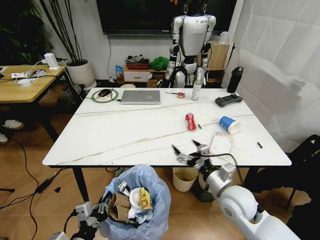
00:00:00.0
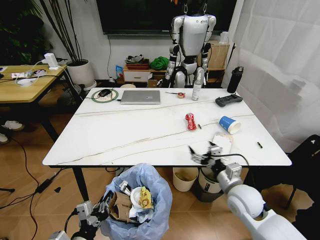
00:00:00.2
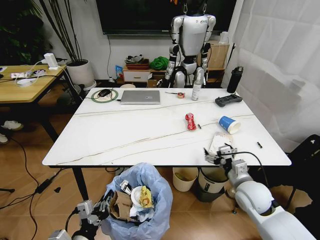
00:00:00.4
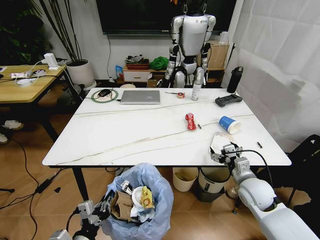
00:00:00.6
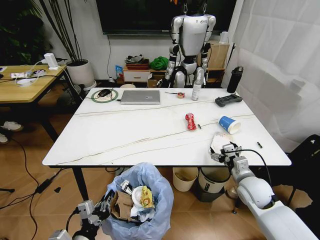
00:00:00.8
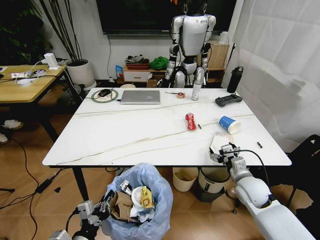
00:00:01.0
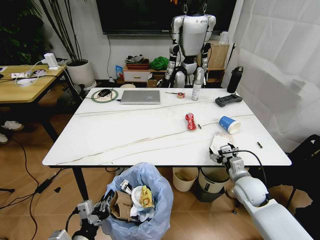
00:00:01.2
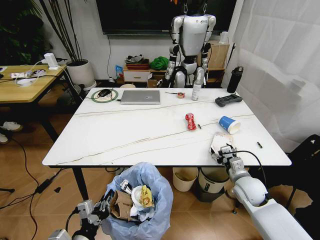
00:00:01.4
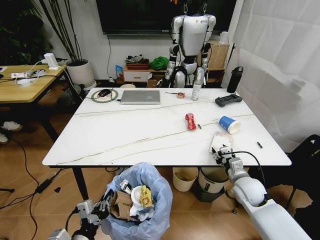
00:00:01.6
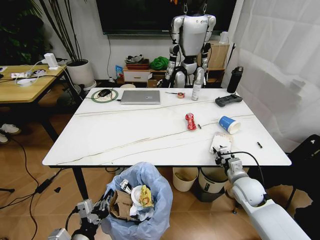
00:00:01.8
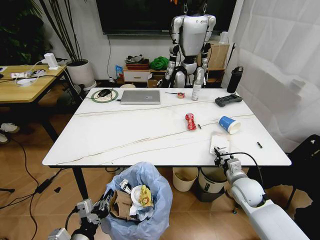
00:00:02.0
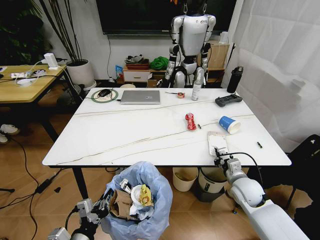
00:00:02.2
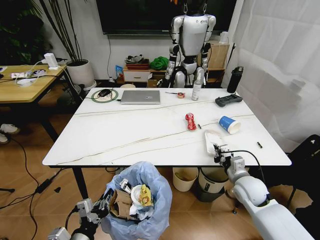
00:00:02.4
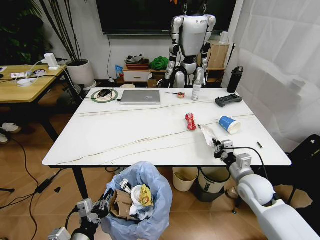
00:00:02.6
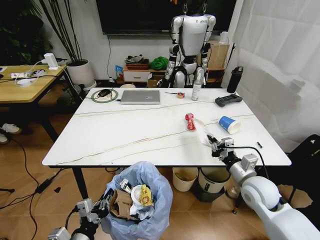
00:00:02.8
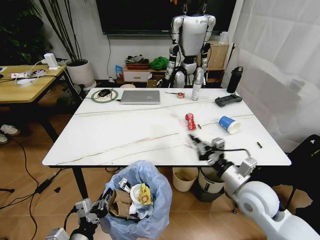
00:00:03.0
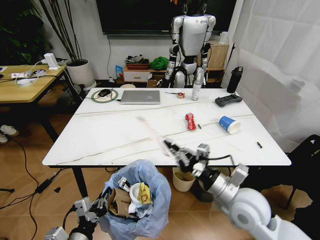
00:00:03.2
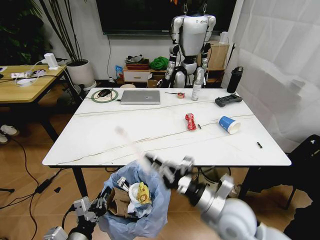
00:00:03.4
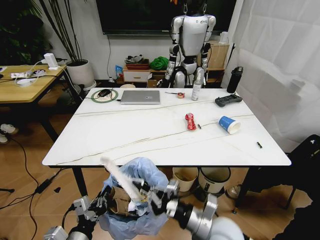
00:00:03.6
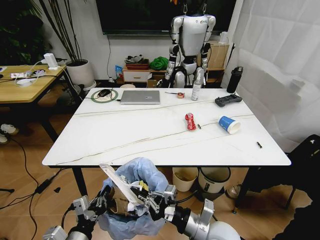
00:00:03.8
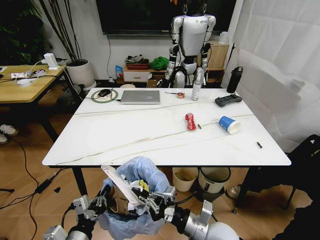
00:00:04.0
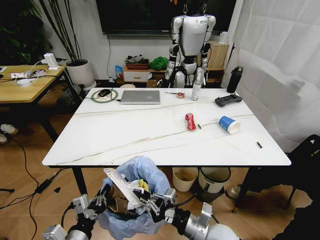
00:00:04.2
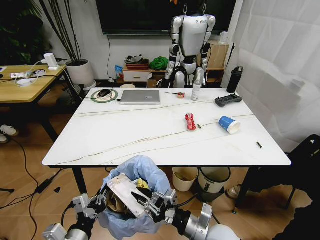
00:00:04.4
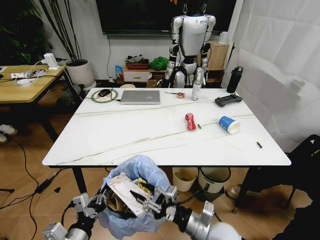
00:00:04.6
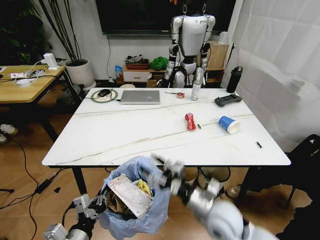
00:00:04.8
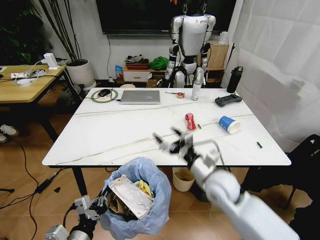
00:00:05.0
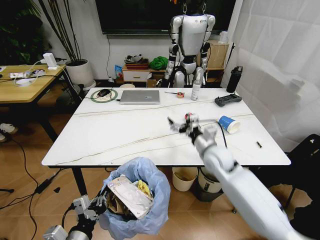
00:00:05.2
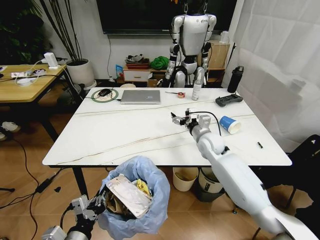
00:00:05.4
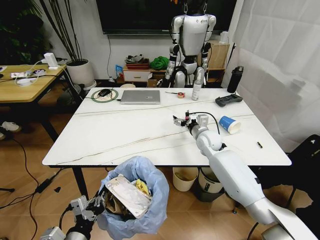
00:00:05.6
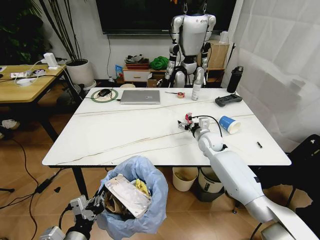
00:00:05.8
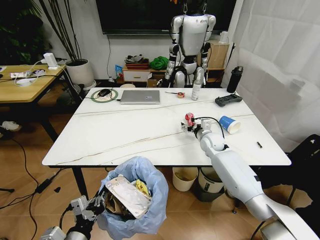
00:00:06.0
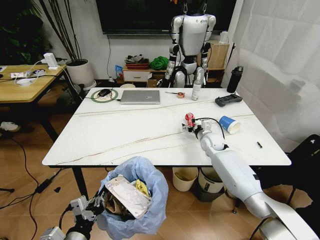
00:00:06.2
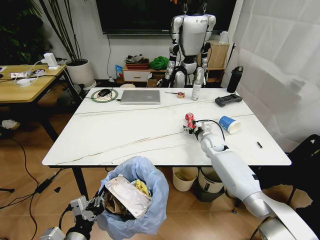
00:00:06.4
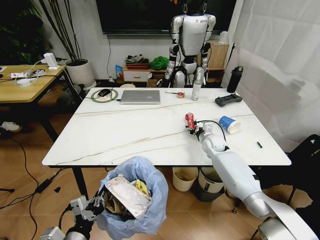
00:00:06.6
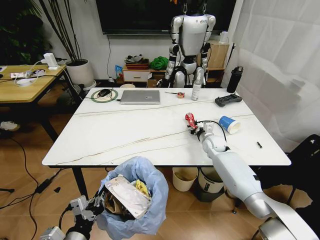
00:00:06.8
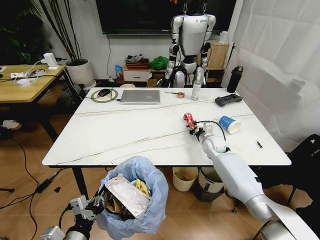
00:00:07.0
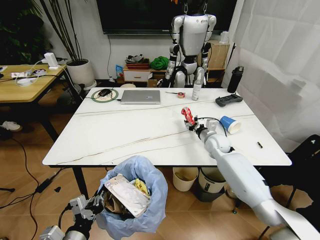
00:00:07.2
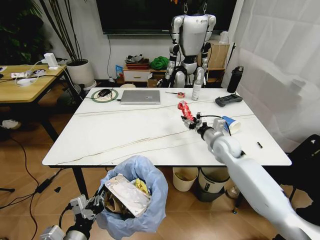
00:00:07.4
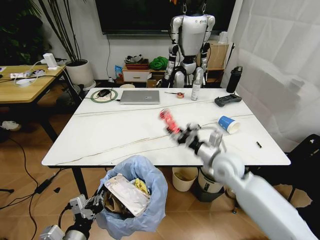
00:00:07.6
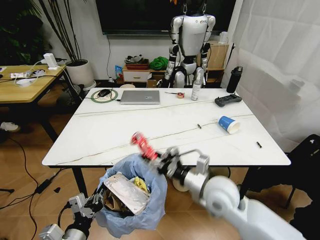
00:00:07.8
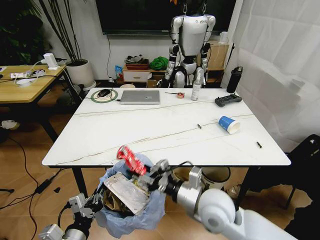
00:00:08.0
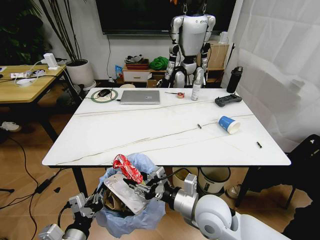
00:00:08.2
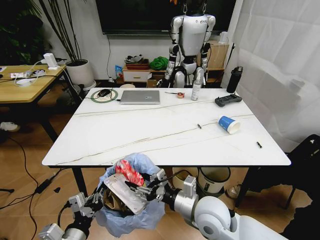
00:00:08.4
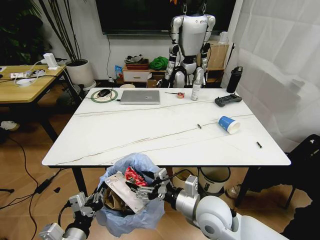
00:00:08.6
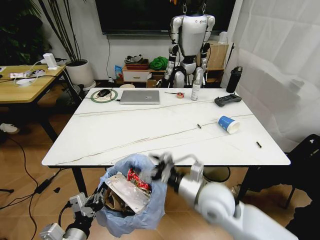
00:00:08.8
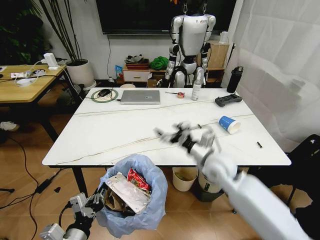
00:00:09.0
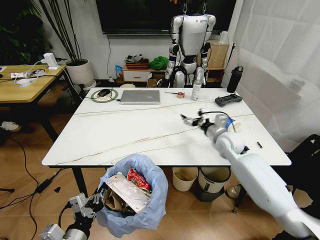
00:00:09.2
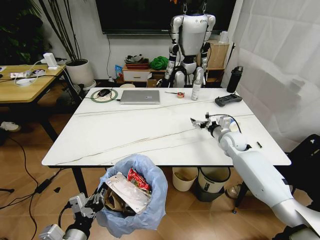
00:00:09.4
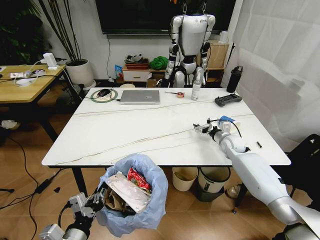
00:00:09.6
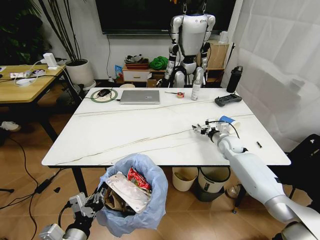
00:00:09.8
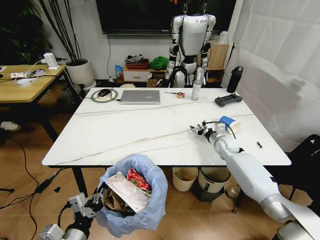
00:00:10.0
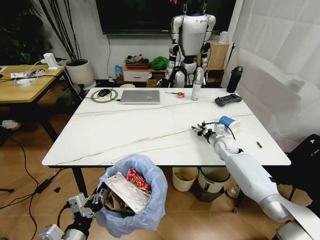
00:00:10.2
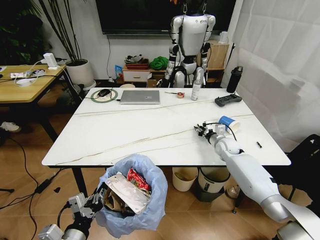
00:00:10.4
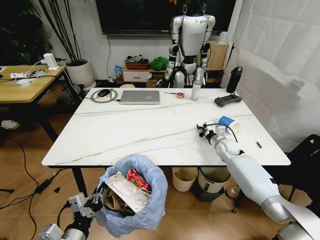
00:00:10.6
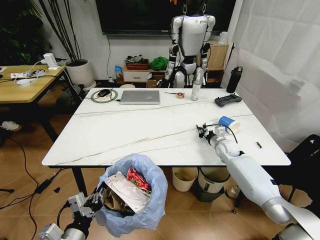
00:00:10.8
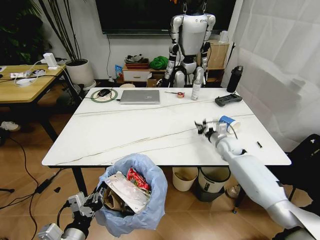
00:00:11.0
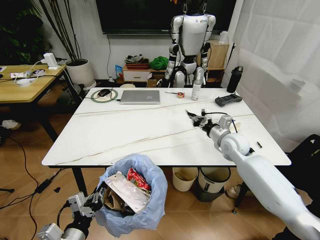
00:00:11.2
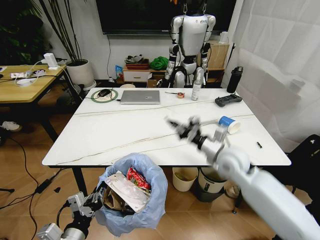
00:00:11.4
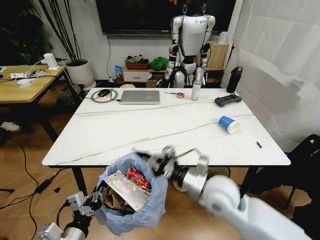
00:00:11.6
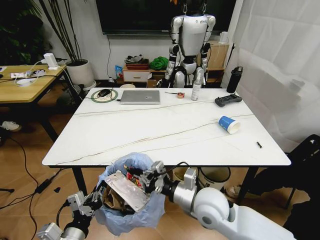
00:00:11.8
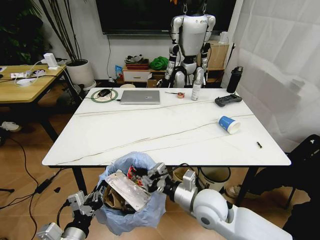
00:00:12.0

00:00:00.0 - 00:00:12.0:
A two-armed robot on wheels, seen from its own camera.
Task of the whole recording: Pick up the trash bin and place the trash from the table into it.
00:00:00.0 - 00:00:01.6: The right gripper travels to the right, downward and forward by roughly 10 cm, and closes up.
00:00:01.6 - 00:00:03.0: The right gripper travels upward and backward by approximately 10 cm, and closes.
00:00:03.0 - 00:00:04.4: The right gripper travels to the left, backward and downward by some 15 cm.
00:00:04.4 - 00:00:06.0: The right gripper goes some 35 cm forward, and opens its fingers.
00:00:06.0 - 00:00:07.6: The right gripper is displaced backward and upward by some 20 cm, and closes.
00:00:07.6 - 00:00:09.0: The right gripper goes backward and returns, roughly 10 cm each way, and opens up.
00:00:09.0 - 00:00:10.4: The right gripper is displaced forward, downward and to the right by some 20 cm, and closes up.
00:00:10.4 - 00:00:12.0: The right gripper shifts approximately 30 cm backward and to the left.

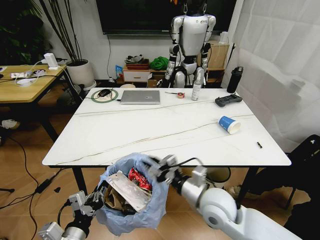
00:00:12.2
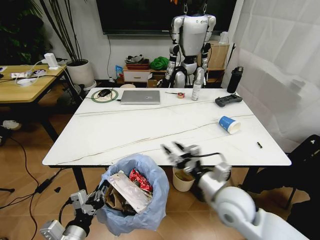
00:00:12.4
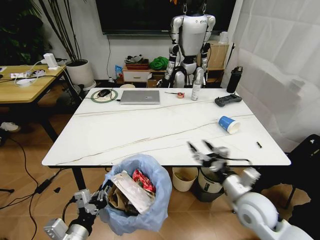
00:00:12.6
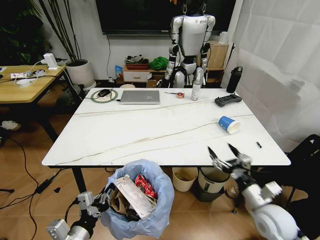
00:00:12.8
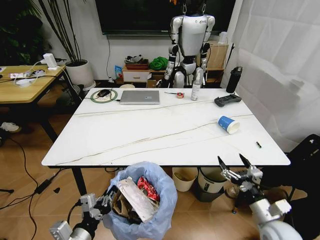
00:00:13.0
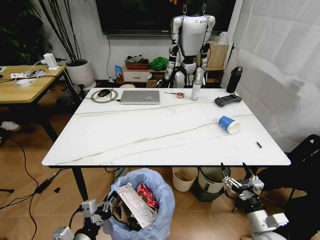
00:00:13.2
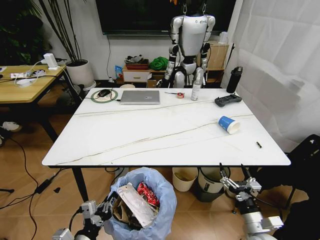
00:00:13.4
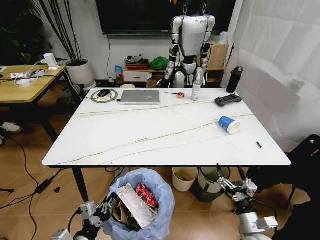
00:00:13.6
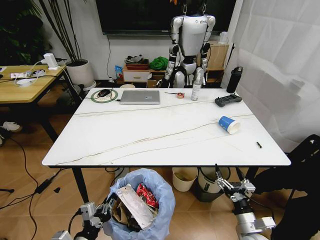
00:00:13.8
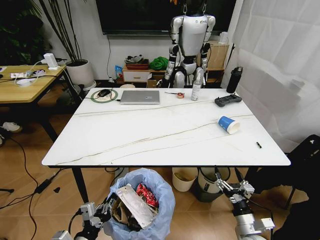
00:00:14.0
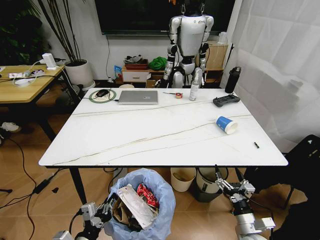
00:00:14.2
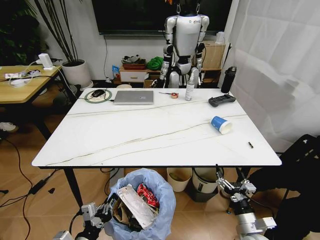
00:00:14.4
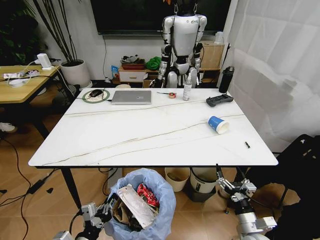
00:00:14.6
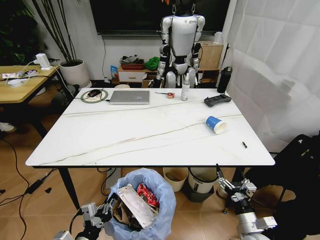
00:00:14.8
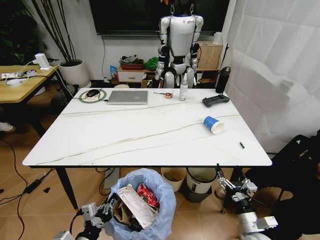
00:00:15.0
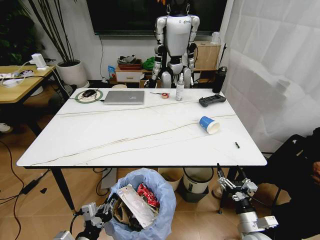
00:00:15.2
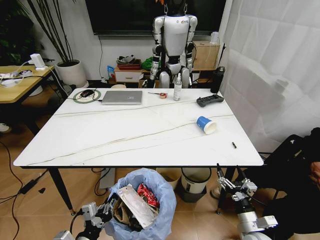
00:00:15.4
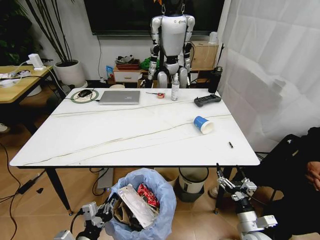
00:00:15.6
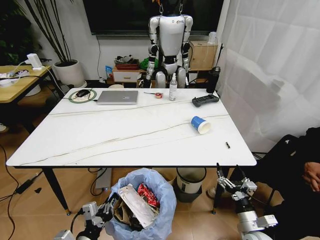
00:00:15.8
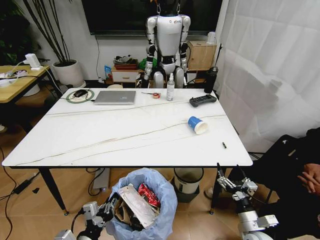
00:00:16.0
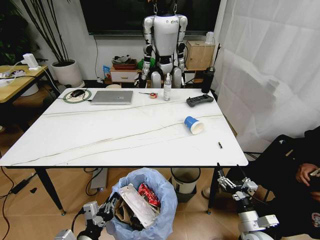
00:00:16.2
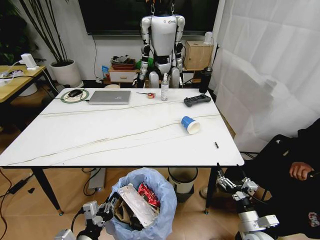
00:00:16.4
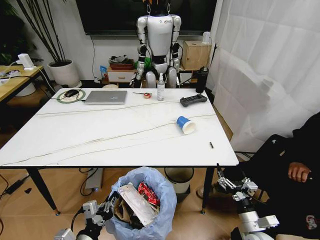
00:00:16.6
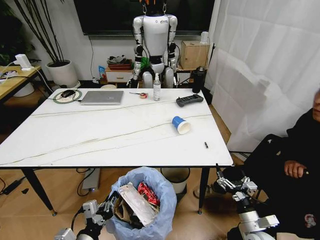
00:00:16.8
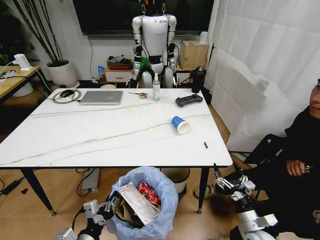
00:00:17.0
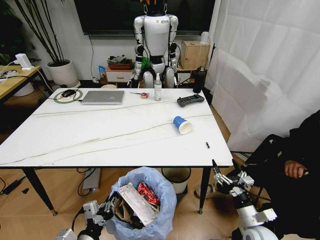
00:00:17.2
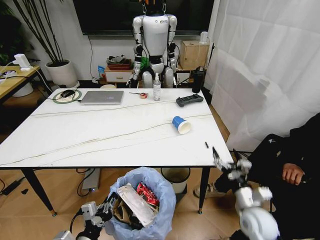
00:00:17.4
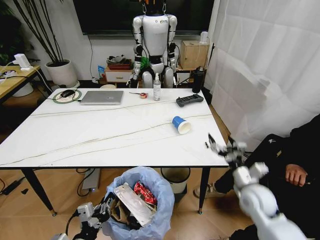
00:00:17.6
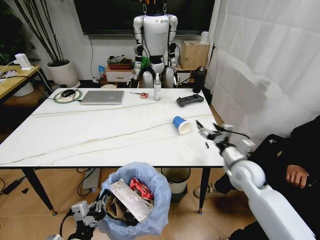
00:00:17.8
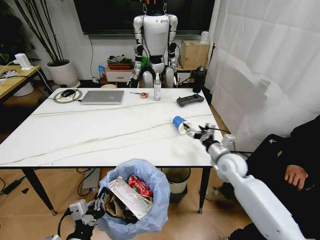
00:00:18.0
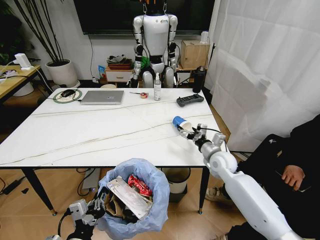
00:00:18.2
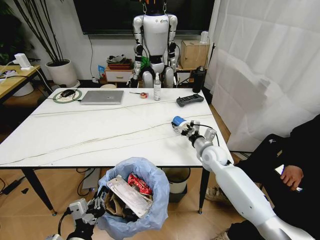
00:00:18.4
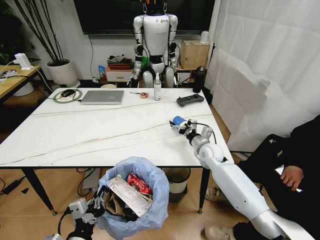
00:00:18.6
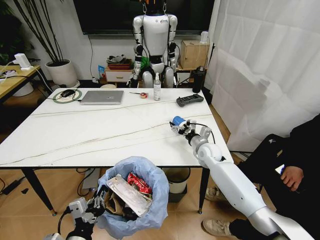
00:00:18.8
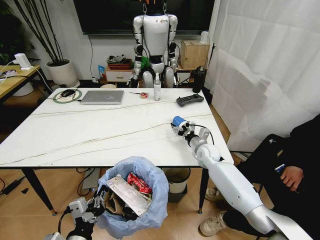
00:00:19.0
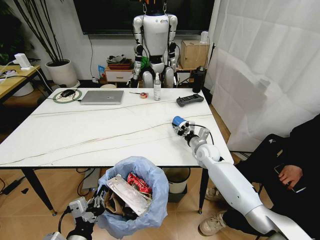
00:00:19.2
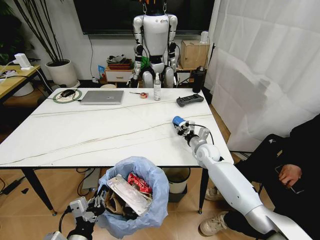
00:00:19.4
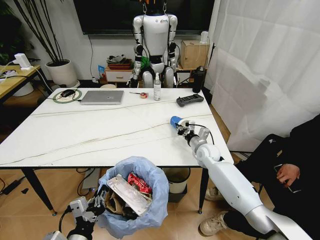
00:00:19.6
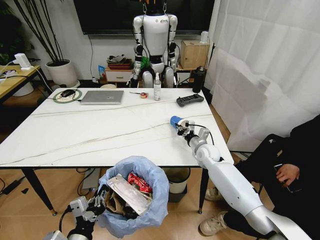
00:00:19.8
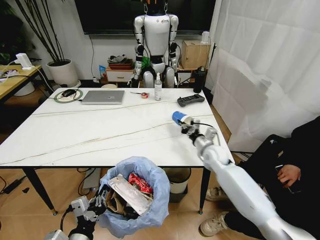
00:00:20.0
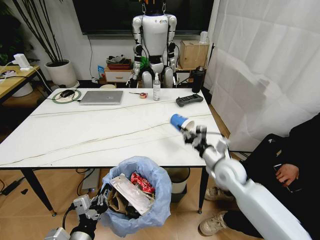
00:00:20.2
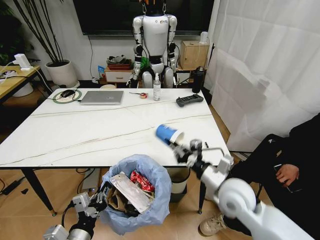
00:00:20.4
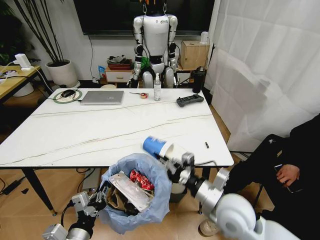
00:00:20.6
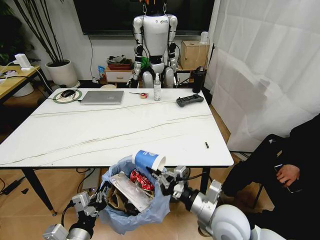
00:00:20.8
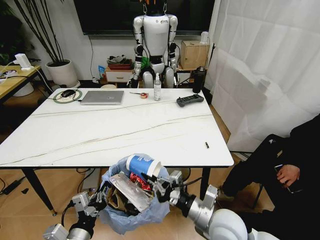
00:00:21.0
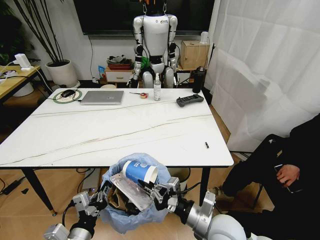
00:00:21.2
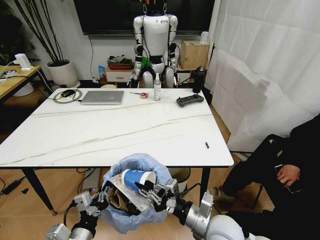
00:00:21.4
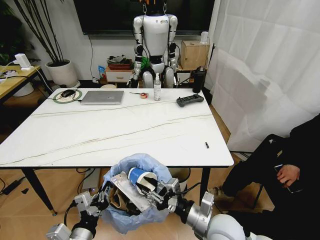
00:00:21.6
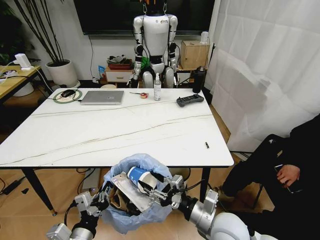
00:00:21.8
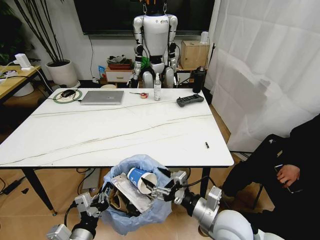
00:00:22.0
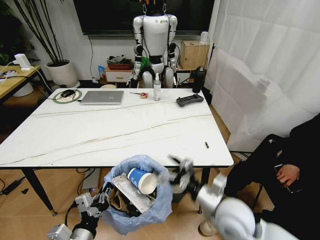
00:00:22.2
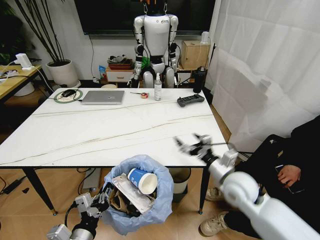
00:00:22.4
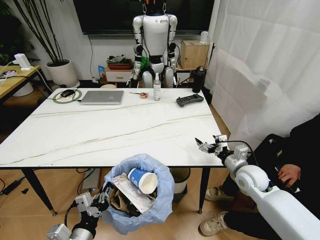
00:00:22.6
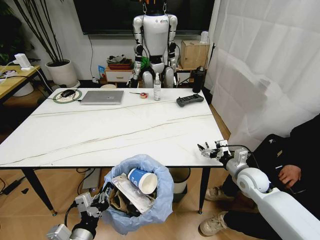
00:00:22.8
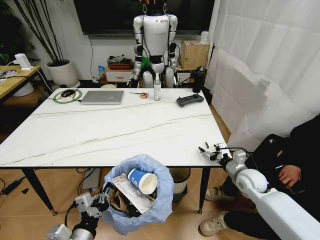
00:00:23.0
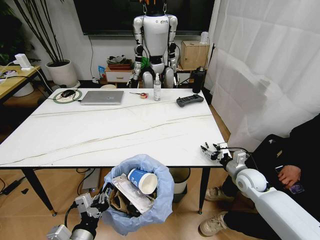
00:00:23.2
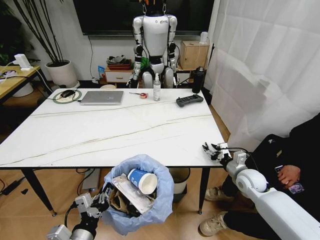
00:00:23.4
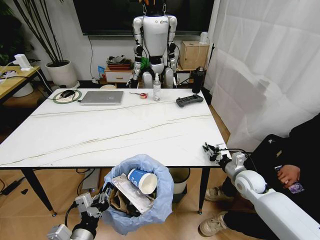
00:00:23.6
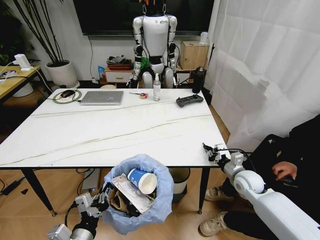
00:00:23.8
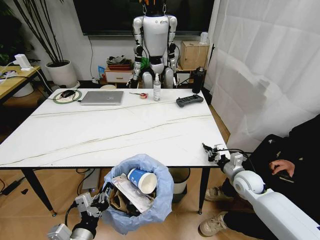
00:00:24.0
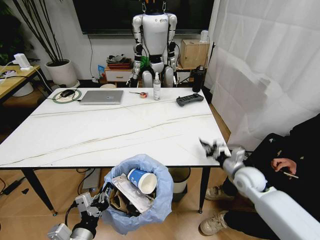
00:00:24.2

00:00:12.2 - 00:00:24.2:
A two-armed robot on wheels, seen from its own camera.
Task of the whole recording: Pick up the trash bin and place the trash from the table into it.
00:00:12.2 - 00:00:13.8: The right gripper shifts about 25 cm downward, to the right and backward, and opens its fingers.
00:00:16.6 - 00:00:18.2: The left gripper ends up approximately 5 cm from where it was. The right gripper travels forward and upward by about 30 cm.
00:00:18.2 - 00:00:19.8: The right gripper moves forward, about 5 cm, and closes its fingers.
00:00:19.8 - 00:00:21.2: The right gripper moves backward, some 30 cm.
00:00:21.2 - 00:00:22.6: The right gripper moves forward and to the right, approximately 20 cm, and opens.
00:00:22.6 - 00:00:24.2: The right gripper closes its fingers.
